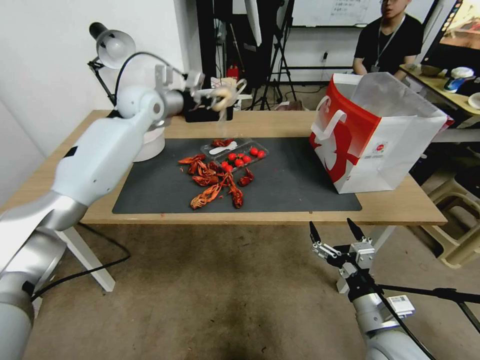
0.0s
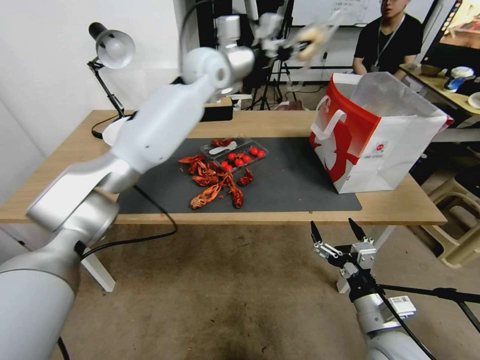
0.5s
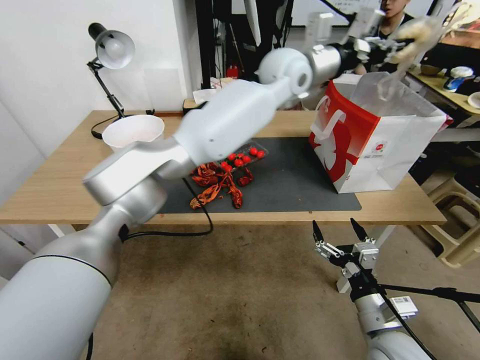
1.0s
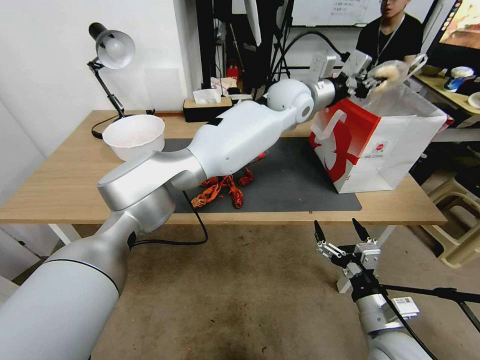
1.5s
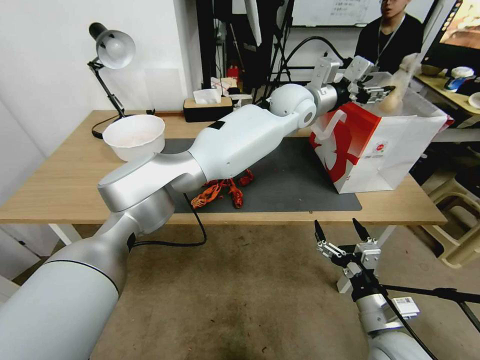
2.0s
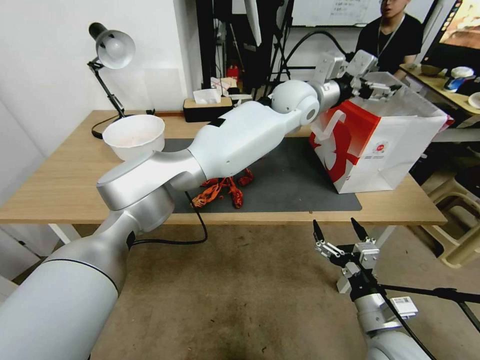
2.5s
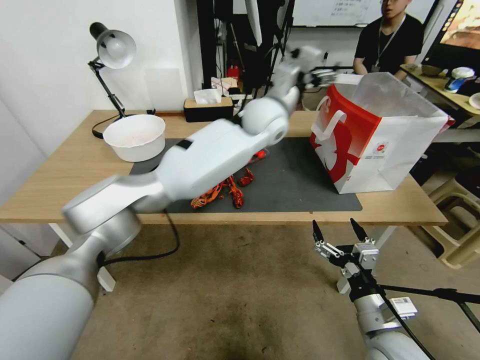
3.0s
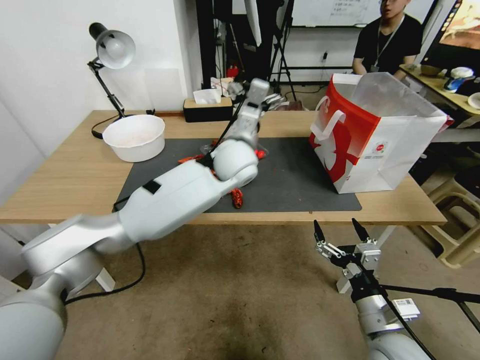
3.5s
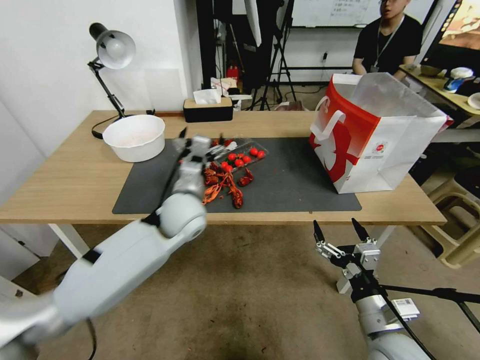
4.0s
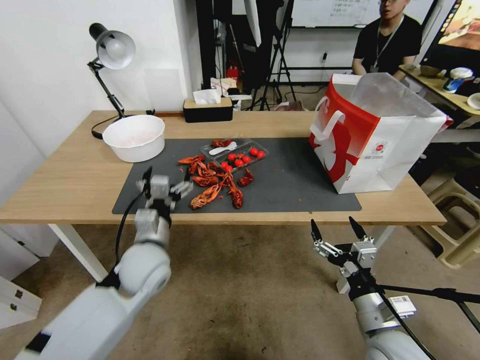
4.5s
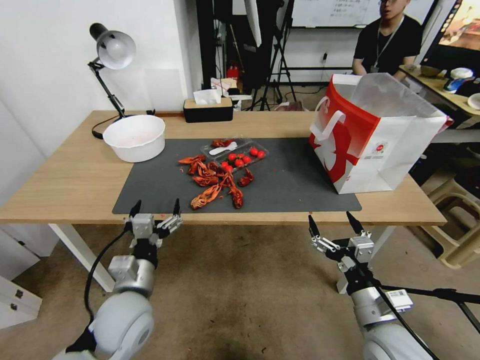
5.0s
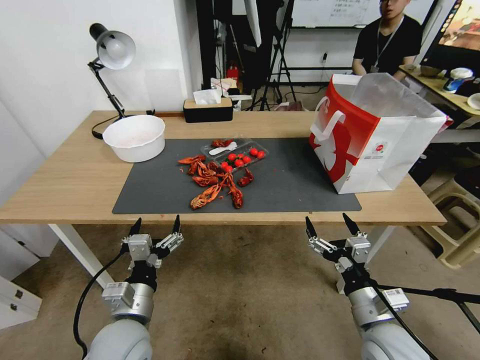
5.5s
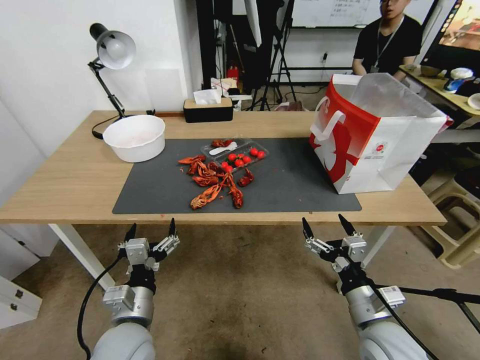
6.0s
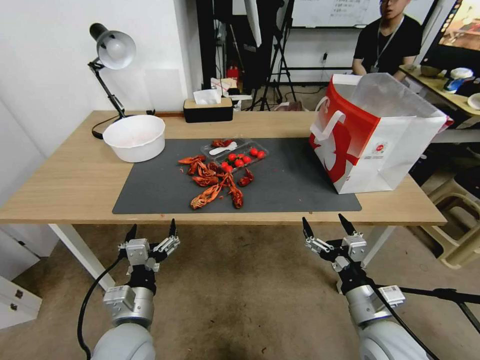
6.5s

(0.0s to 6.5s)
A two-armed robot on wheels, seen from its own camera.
0.0s - 2.0s: The left gripper moves to the right, about 35 cm, and opens up.
2.0s - 4.5s: The left gripper shifts about 40 cm to the left, backward and downward, and opens up.
4.5s - 6.5s: The left gripper shifts some 15 cm backward.
